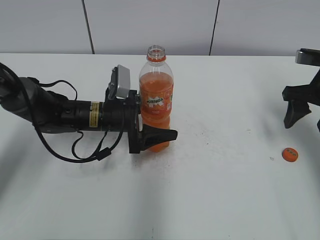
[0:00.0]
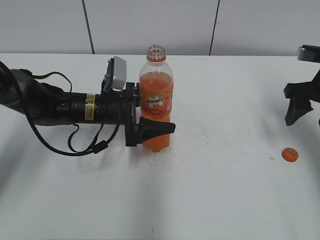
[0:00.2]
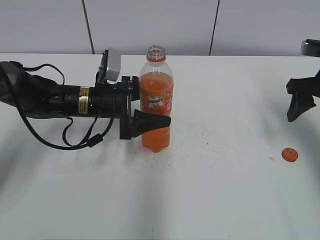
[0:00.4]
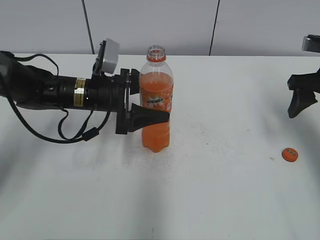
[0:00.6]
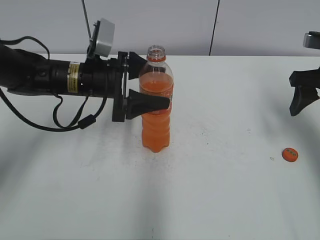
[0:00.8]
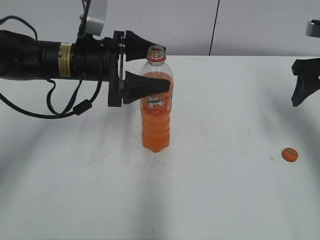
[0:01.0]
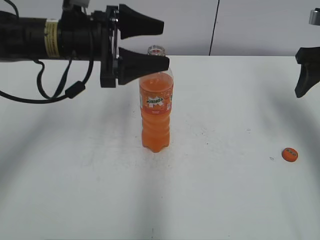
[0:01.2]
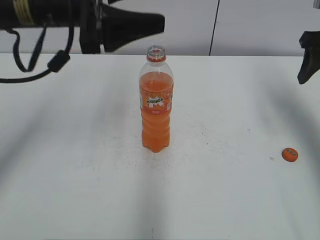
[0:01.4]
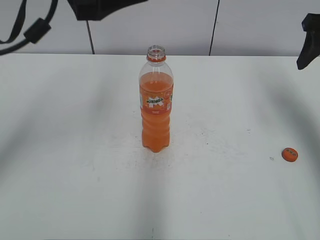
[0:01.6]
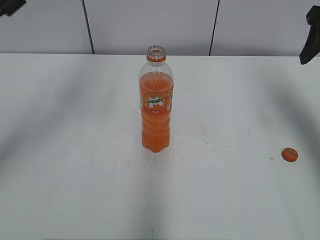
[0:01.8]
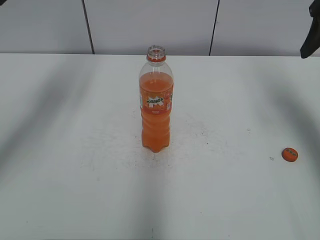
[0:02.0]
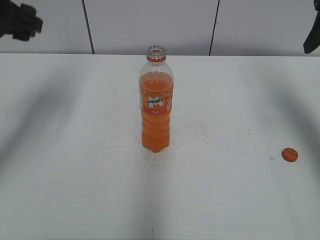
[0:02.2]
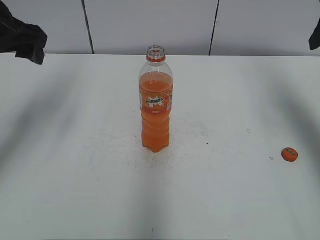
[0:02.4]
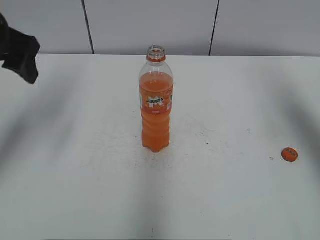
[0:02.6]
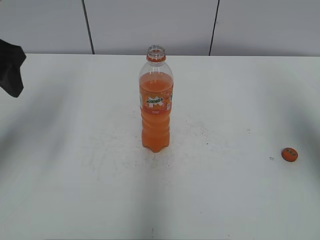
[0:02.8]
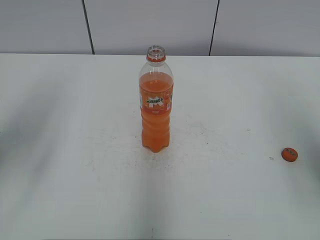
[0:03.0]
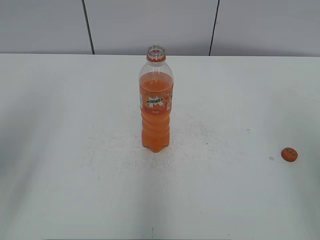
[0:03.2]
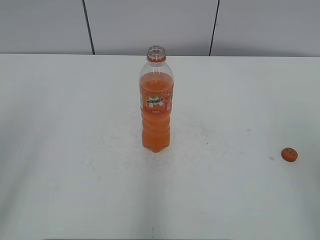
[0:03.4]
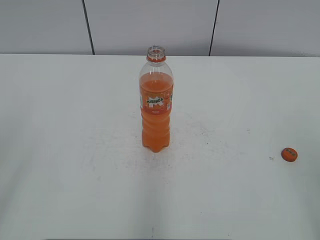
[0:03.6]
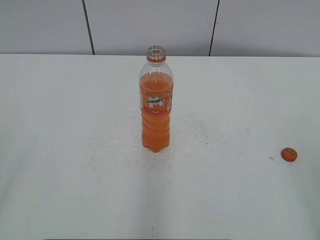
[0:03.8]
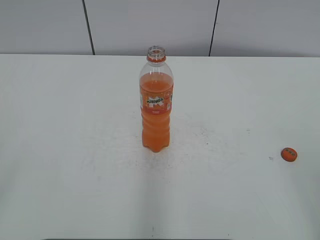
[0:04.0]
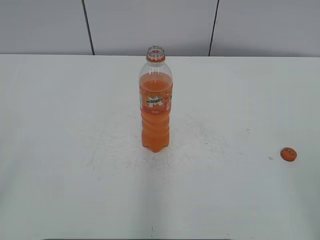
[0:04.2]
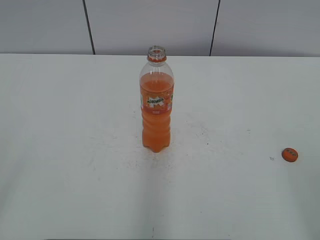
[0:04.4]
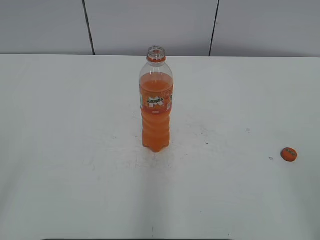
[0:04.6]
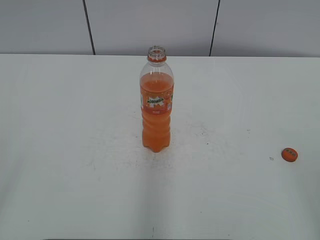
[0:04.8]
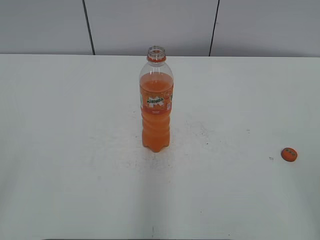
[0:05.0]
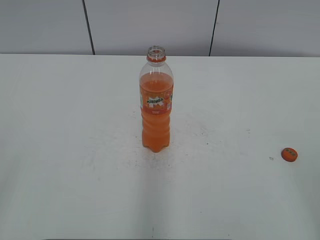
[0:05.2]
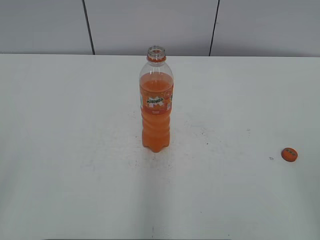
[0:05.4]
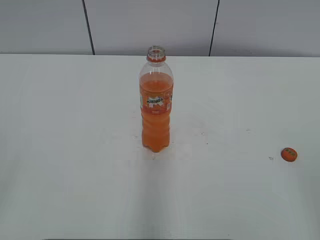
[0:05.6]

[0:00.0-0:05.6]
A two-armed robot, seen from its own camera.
0:00.0 to 0:01.4: The right gripper shifts about 10 cm upward. The left gripper is displaced upward by some 20 cm.
0:01.4 to 0:02.8: The right gripper shifts approximately 10 cm backward and upward. The left gripper heads to the left, covering approximately 10 cm.
0:02.8 to 0:04.2: The grippers both shift backward by approximately 25 cm.
